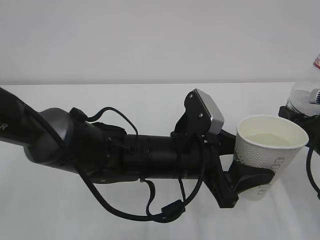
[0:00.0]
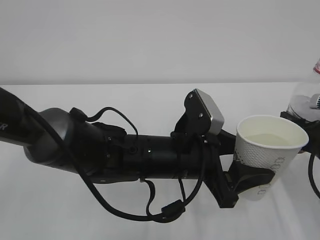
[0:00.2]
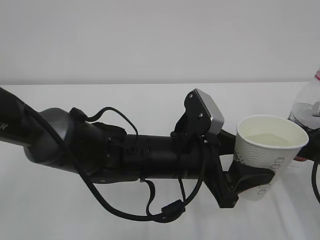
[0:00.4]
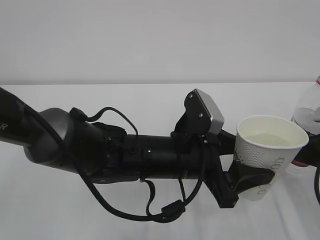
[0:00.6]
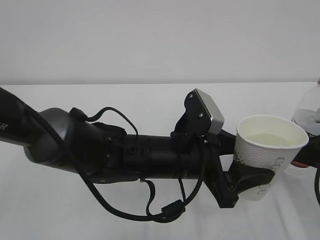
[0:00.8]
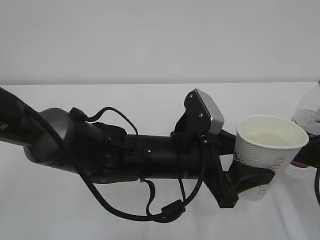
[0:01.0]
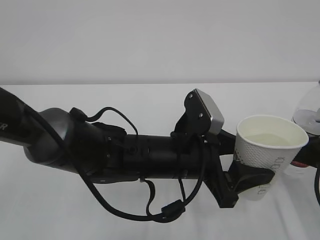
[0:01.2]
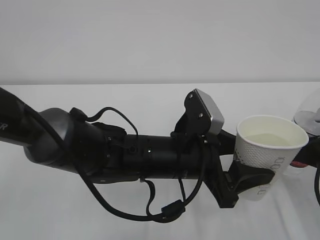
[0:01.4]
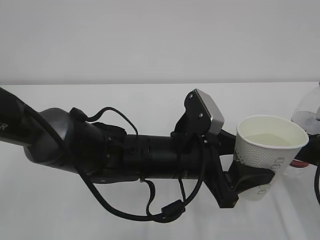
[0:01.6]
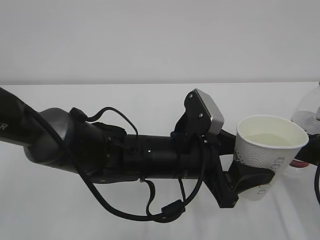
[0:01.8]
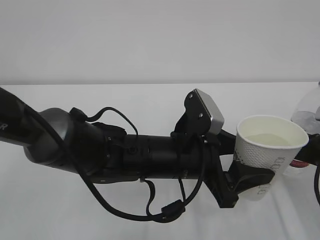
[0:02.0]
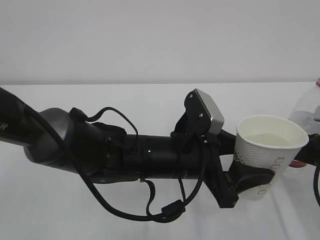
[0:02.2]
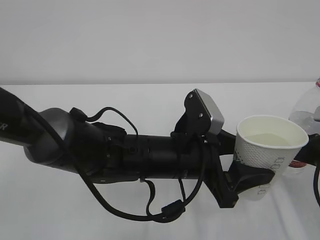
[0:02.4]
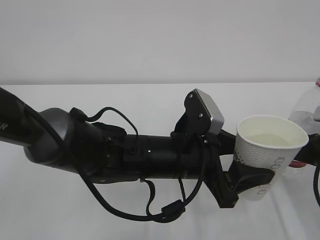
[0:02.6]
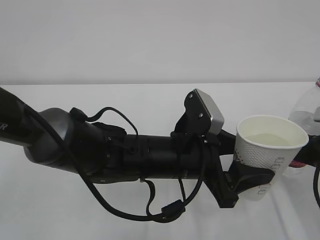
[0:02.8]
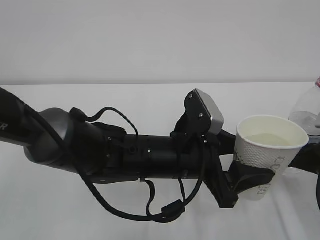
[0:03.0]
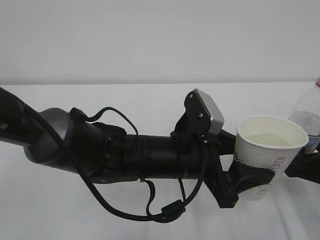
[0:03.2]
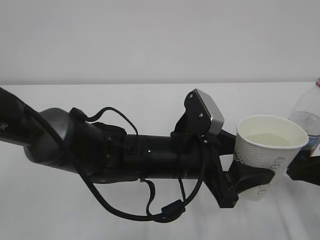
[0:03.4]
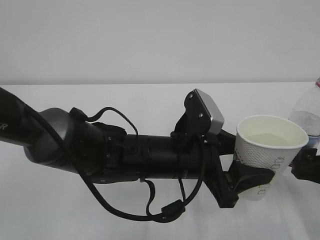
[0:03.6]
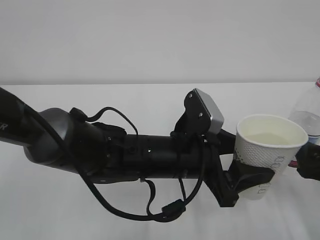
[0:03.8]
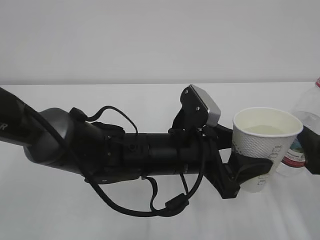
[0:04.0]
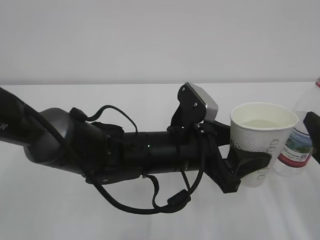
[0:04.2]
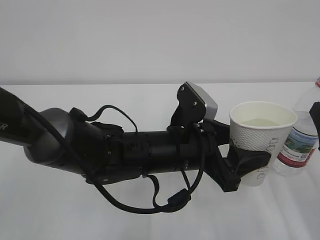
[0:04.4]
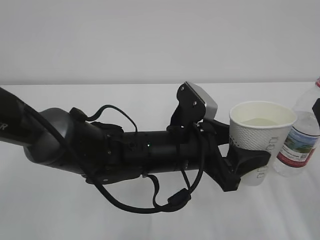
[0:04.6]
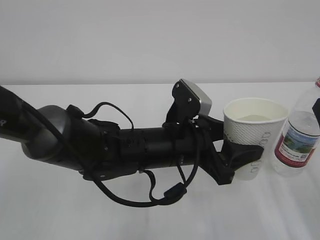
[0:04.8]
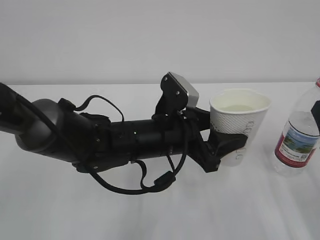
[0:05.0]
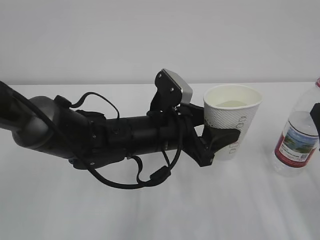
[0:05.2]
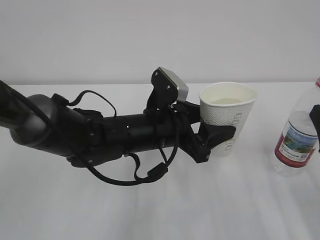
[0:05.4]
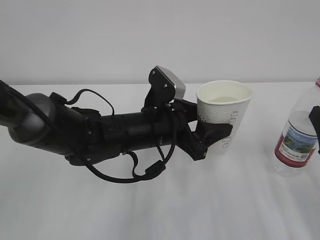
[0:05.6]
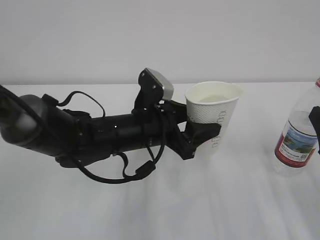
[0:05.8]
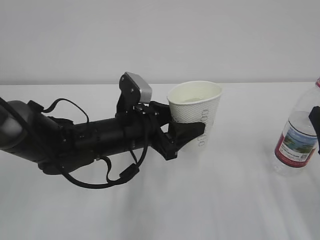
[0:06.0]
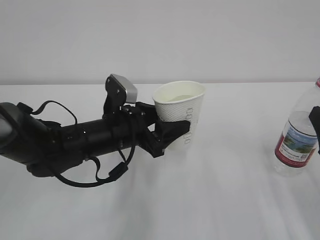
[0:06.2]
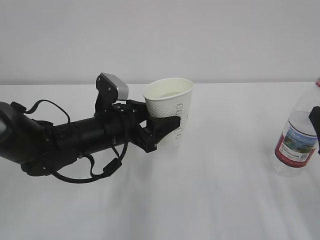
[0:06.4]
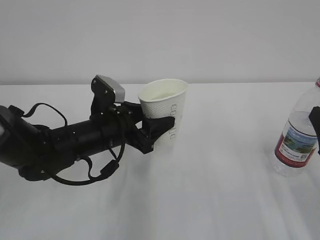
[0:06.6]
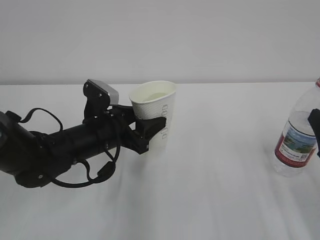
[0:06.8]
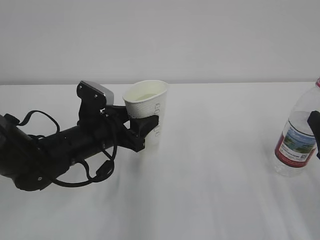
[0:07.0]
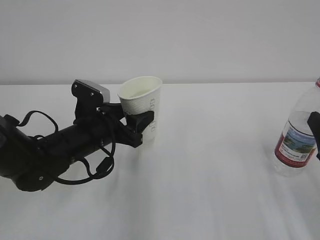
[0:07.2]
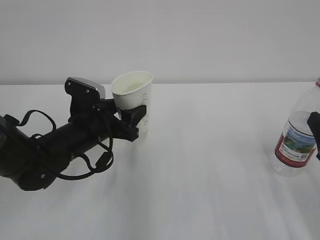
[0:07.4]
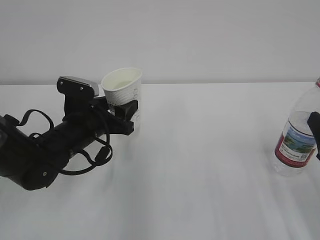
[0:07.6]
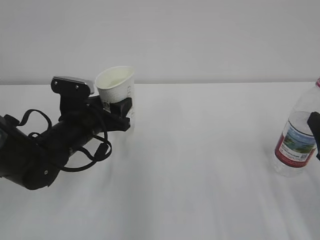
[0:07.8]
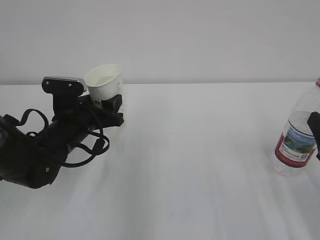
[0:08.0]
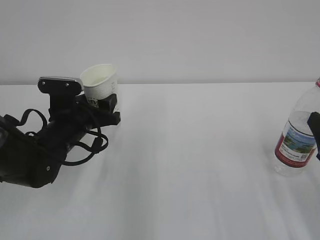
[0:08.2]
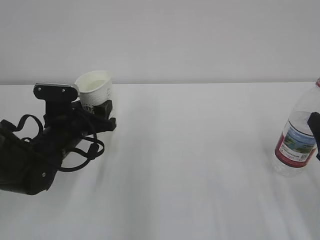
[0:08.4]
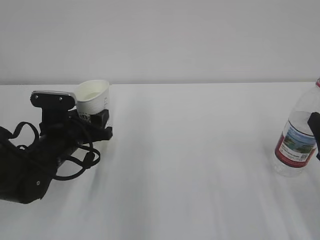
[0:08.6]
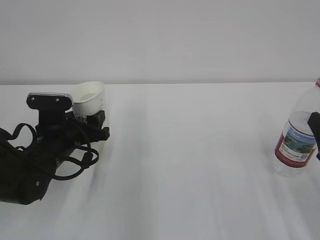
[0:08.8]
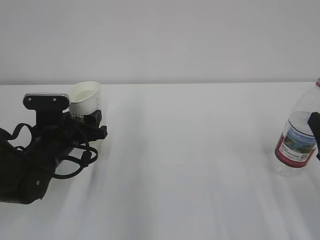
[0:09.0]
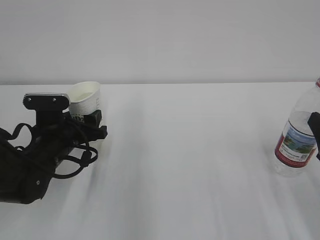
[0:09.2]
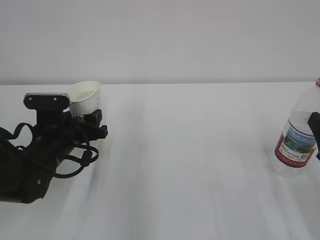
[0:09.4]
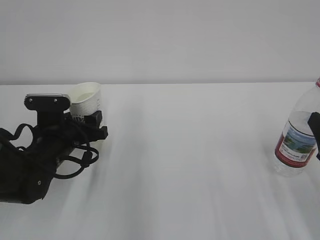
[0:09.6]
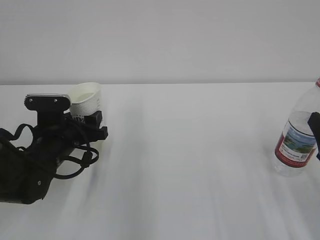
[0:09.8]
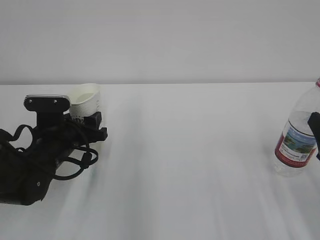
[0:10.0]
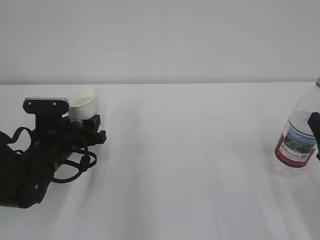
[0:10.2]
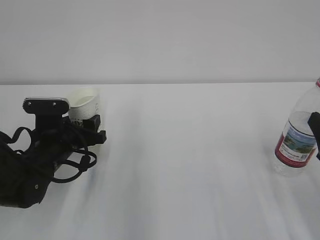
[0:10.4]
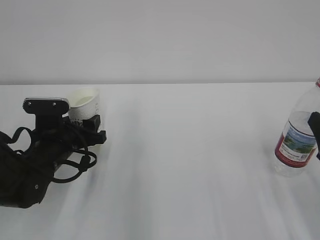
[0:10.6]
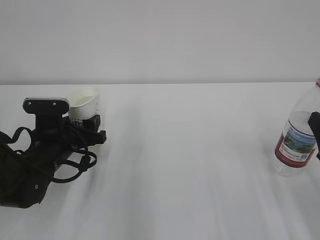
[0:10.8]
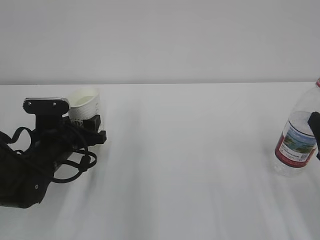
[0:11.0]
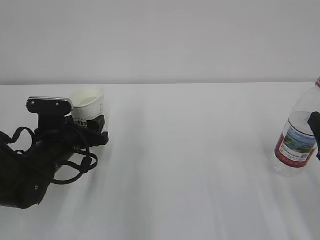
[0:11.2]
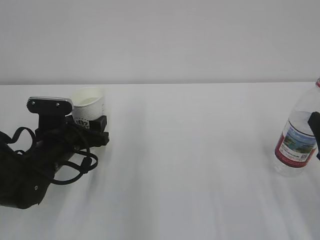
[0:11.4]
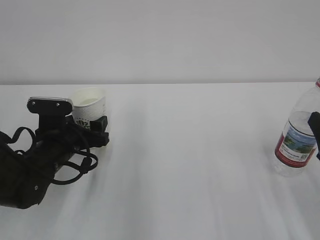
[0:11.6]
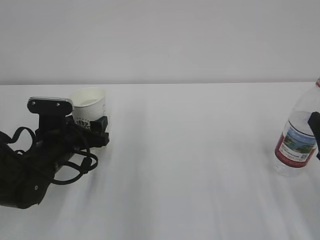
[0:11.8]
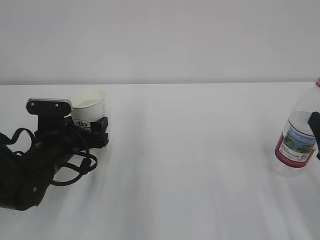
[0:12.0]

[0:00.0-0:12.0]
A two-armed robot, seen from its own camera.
0.0 to 1.6 s: The right gripper opens up.
1.6 to 3.0 s: The right gripper opens up.
3.0 to 4.4 s: The right gripper moves upward and backward, approximately 10 cm.
4.4 to 6.0 s: The left gripper moves to the left and forward, roughly 10 cm.
6.0 to 7.6 s: The left gripper heads to the left, covering some 10 cm.
9.0 to 10.4 s: Both grippers stay about where they are.
10.4 to 12.0 s: The left gripper opens its fingers.

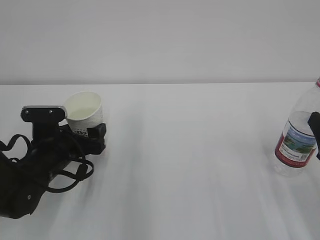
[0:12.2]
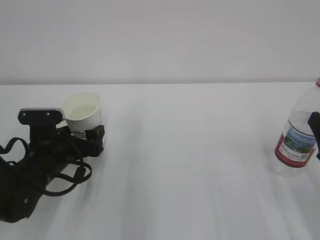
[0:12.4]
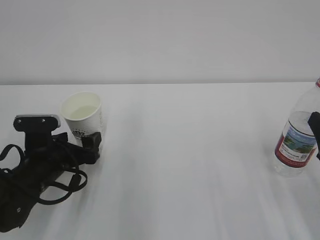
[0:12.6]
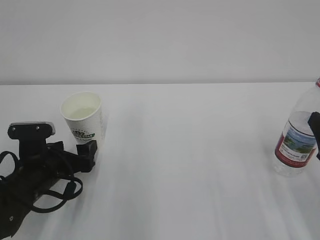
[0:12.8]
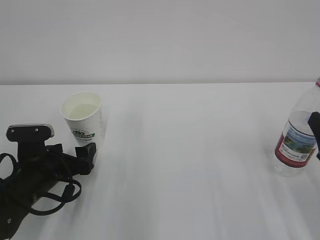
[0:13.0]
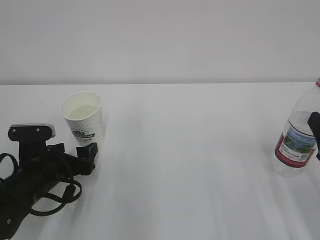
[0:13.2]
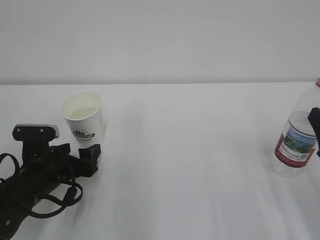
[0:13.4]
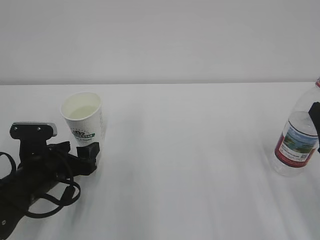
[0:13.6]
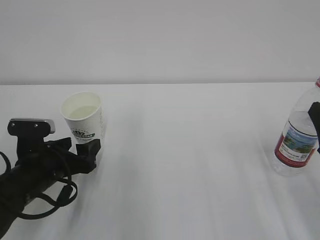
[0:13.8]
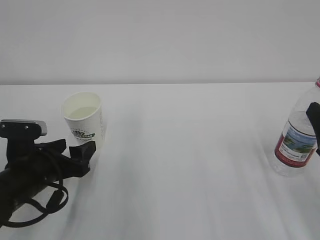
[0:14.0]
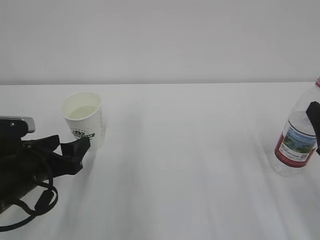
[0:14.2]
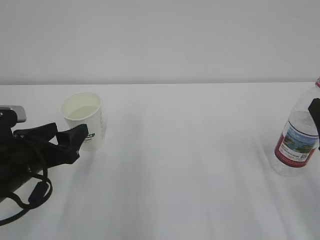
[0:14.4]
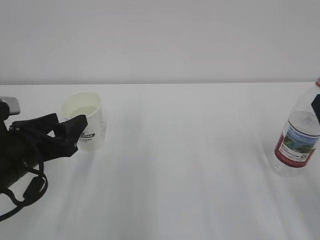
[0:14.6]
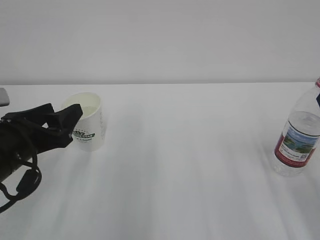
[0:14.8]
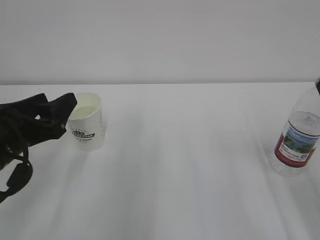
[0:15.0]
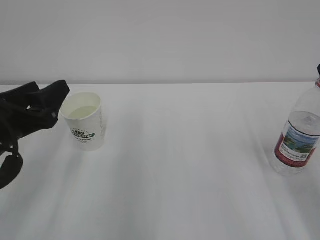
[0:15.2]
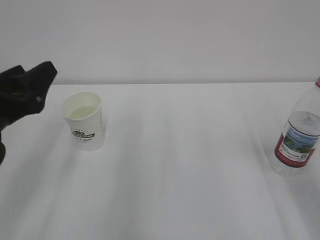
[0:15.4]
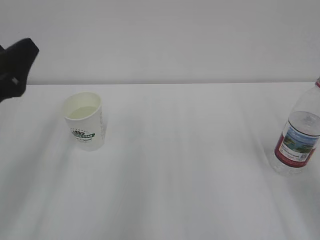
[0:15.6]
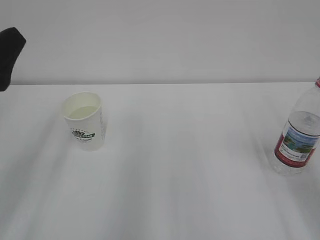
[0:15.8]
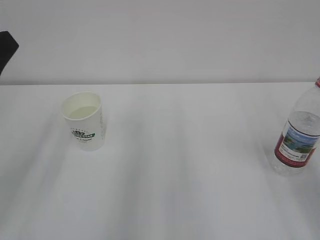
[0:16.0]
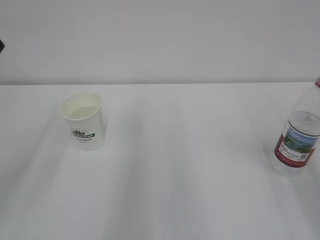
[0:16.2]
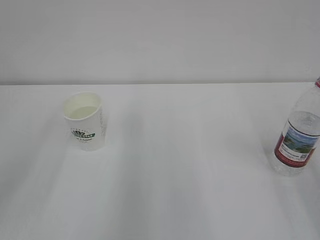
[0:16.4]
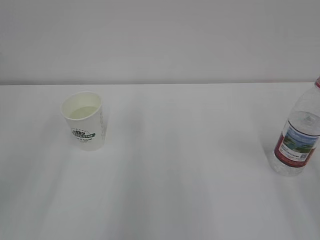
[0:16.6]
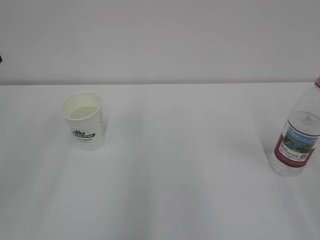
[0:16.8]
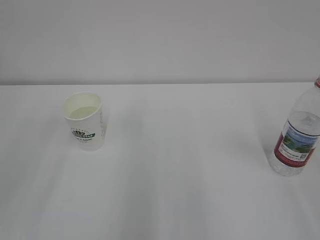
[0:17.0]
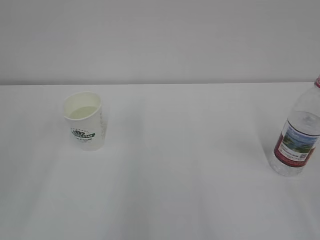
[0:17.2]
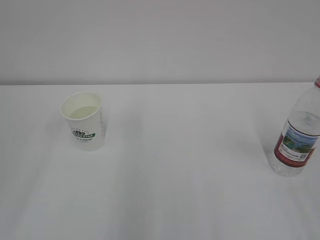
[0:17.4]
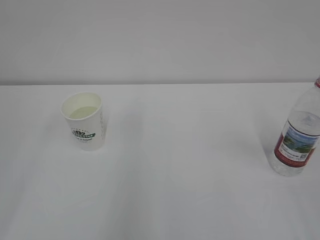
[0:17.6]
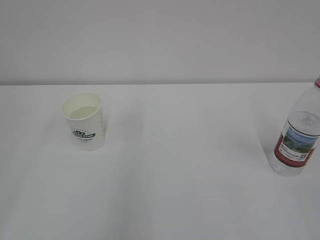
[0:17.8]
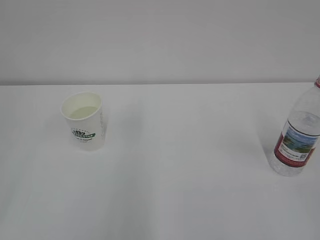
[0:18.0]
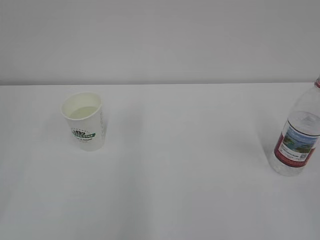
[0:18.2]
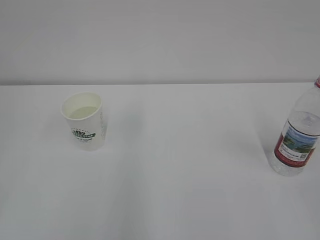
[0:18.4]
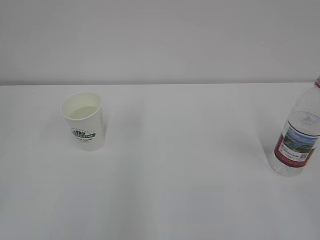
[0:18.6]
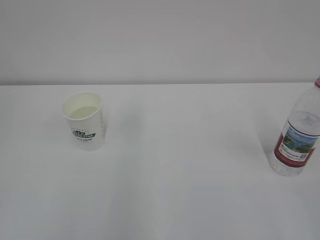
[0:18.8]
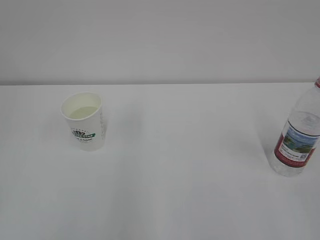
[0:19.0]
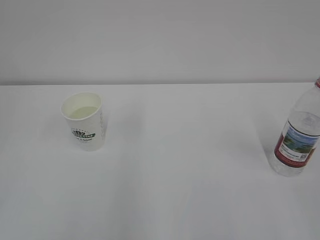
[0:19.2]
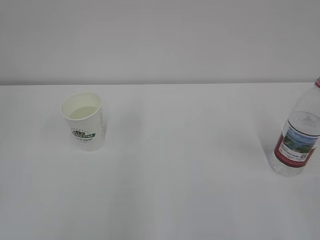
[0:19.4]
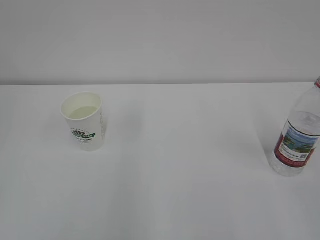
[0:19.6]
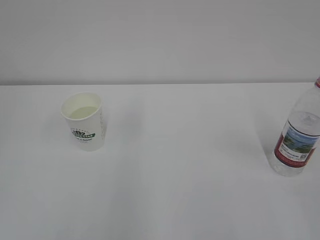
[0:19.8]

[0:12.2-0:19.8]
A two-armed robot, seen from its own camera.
12.2 to 13.8 s: The left gripper closes its fingers.
13.8 to 15.2 s: The left gripper heads upward, covering approximately 10 cm.
15.2 to 16.8 s: The left gripper travels upward and backward by approximately 15 cm.

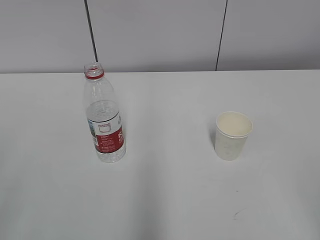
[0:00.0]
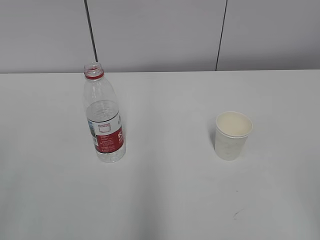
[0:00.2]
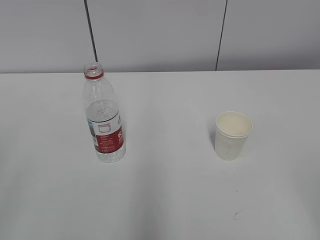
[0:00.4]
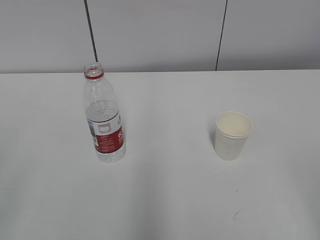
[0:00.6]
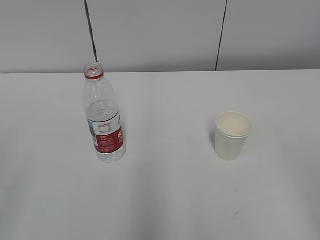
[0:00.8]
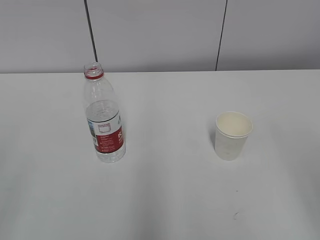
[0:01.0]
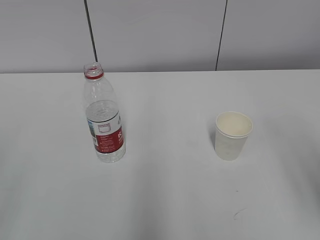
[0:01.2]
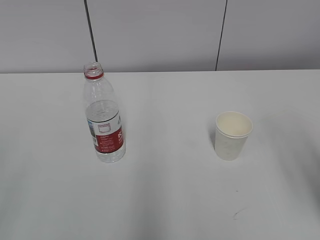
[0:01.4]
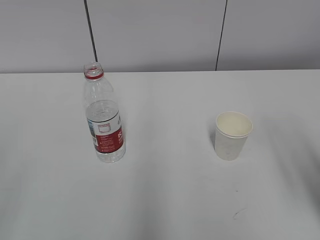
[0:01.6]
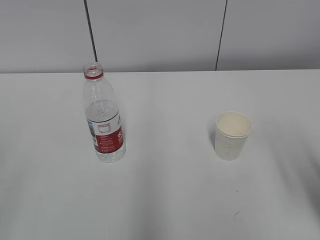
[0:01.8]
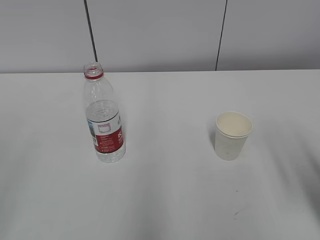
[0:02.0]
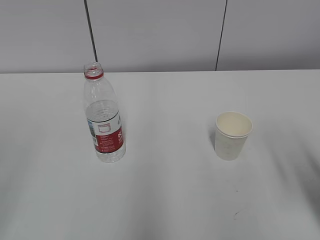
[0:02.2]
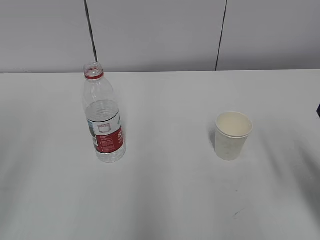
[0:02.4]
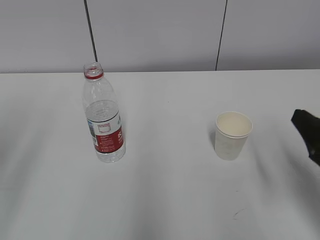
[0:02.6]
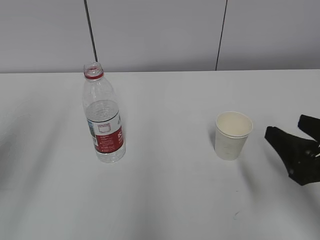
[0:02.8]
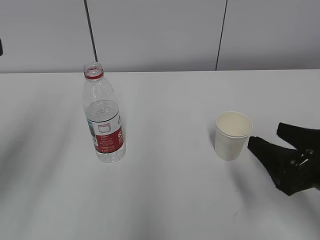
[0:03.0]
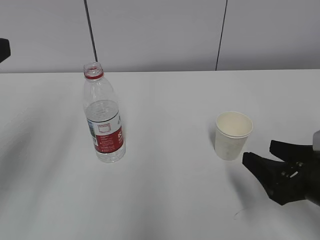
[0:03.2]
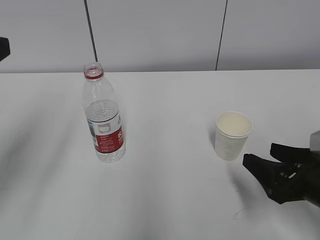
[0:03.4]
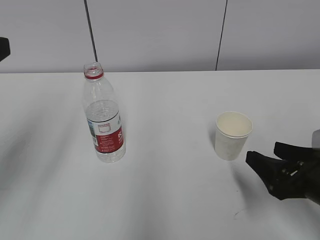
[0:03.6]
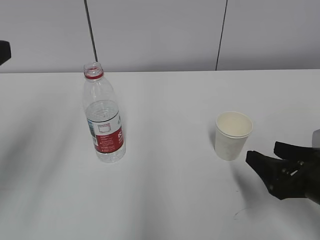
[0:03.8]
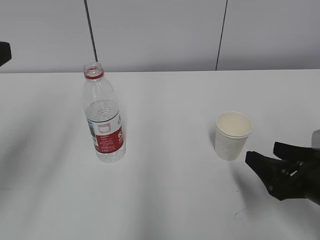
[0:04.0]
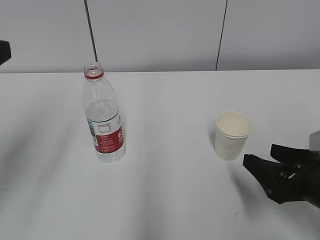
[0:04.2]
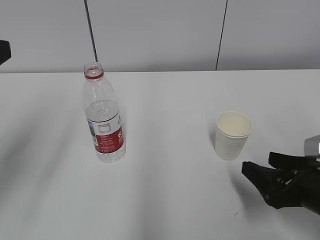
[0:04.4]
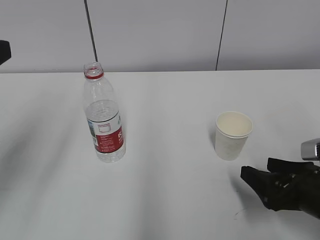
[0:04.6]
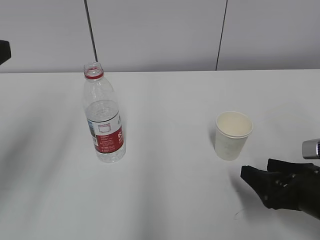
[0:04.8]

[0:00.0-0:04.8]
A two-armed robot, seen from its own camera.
1.6 to 3.2 s: The left gripper travels forward by approximately 20 cm. The right gripper is displaced downward and forward by some 15 cm.
3.2 to 4.8 s: The grippers make only small movements.
